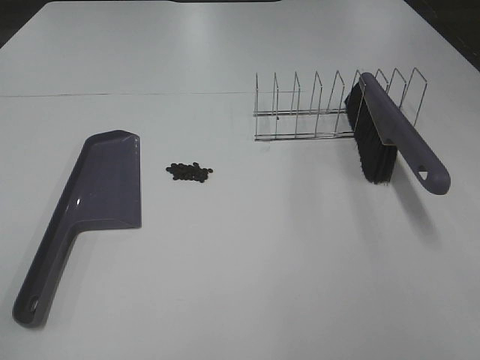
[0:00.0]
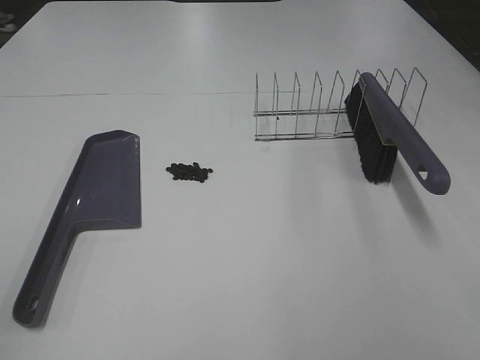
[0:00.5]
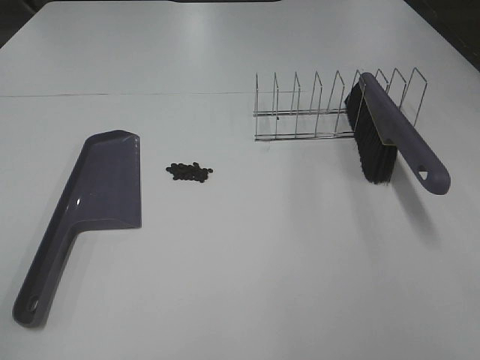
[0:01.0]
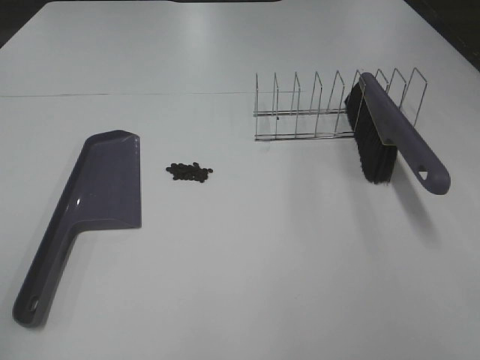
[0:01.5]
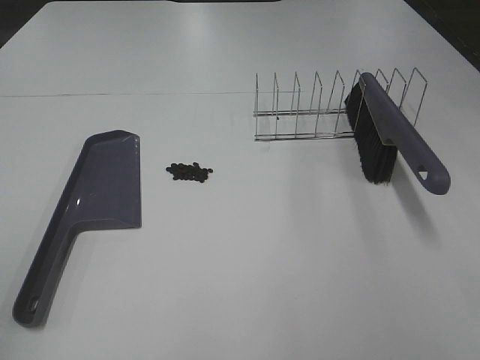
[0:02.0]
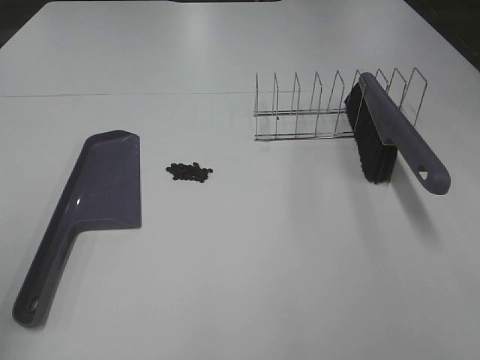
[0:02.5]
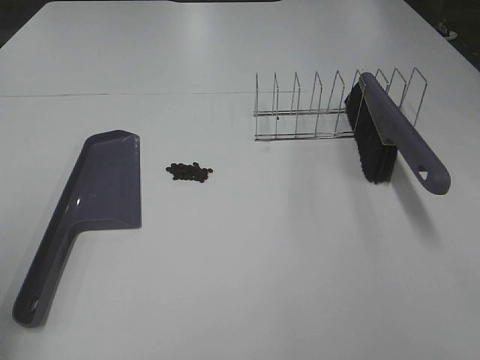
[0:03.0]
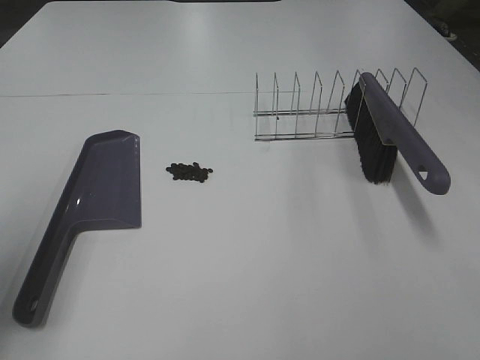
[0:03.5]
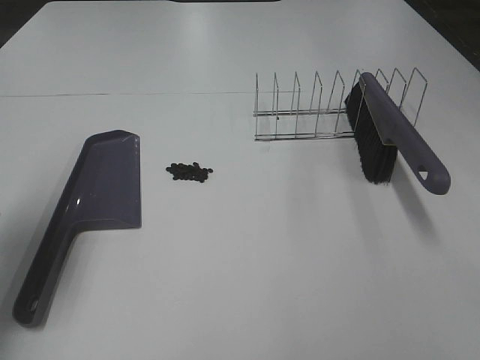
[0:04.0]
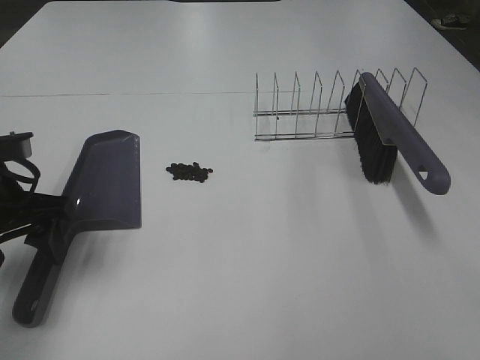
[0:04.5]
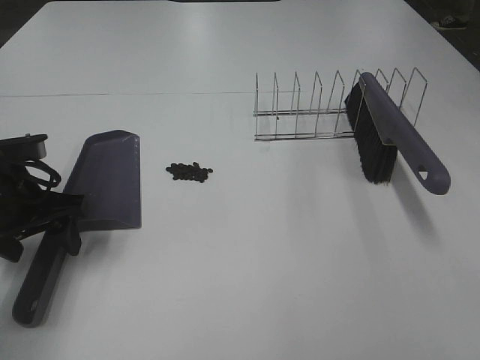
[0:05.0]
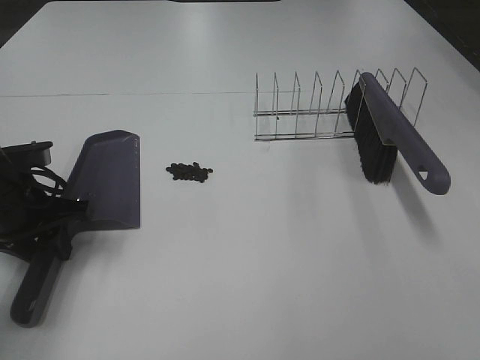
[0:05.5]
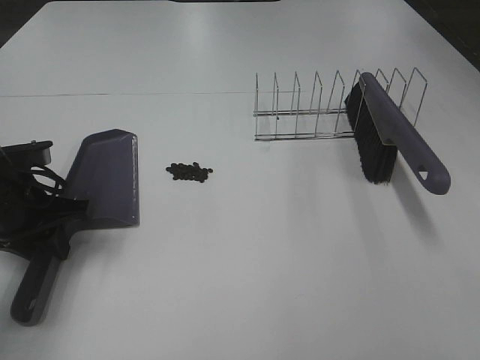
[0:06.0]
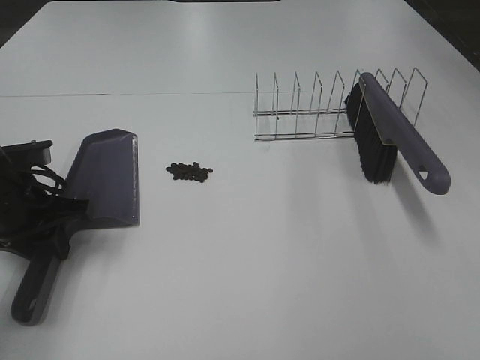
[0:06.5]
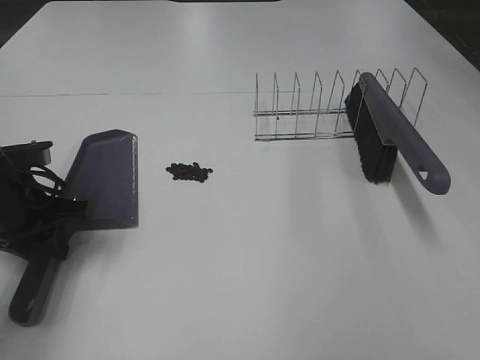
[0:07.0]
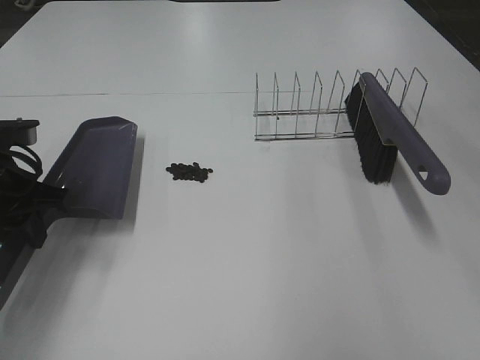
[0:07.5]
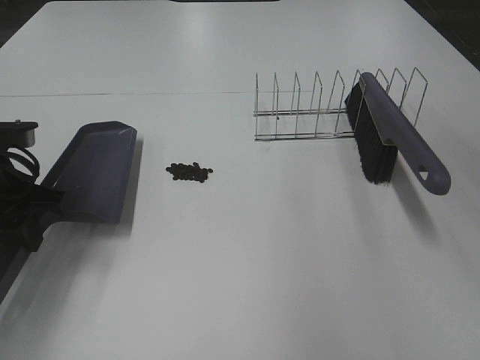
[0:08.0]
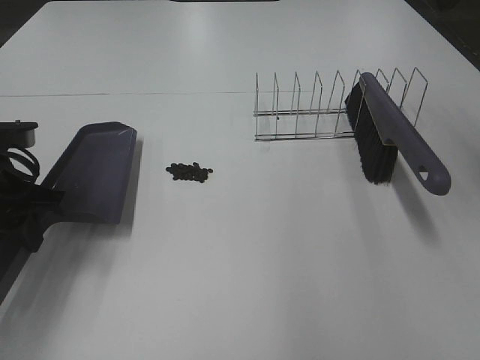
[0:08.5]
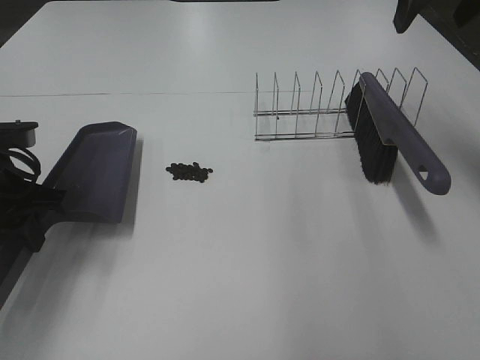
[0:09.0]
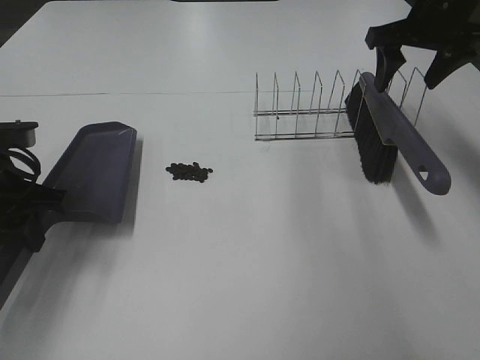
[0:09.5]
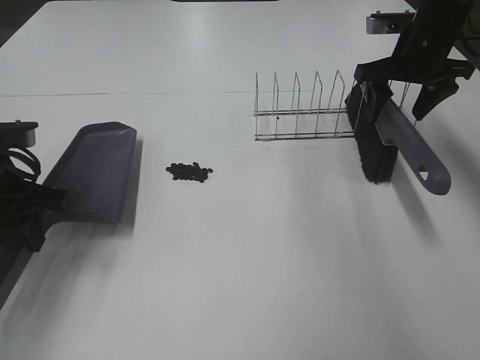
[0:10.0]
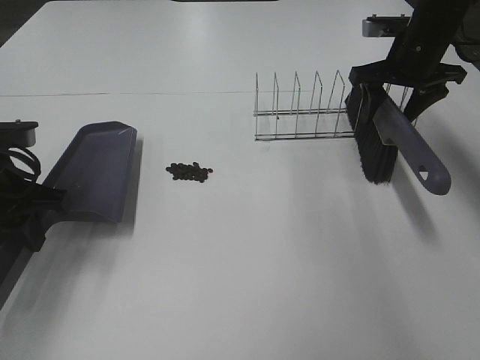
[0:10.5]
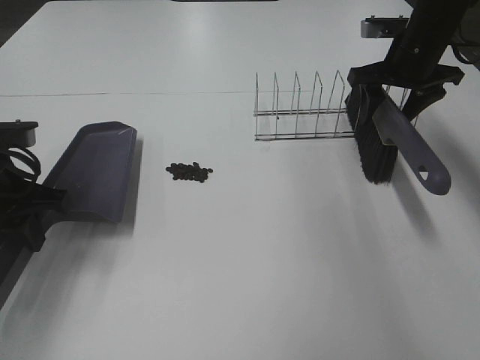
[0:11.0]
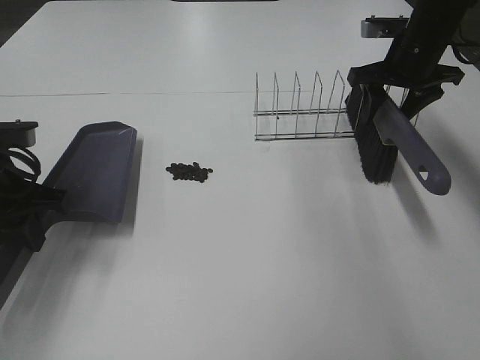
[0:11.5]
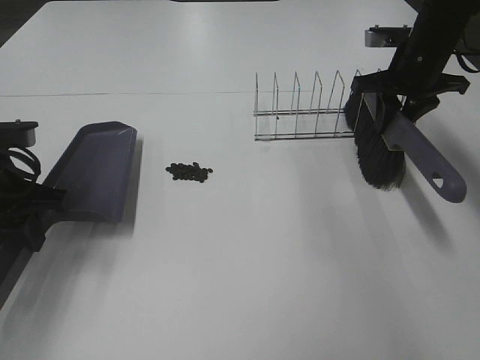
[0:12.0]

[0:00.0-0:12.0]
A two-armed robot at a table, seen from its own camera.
Task of the whole recording: Sweep Coffee Bean.
Step, 0:00.0 to 0:05.5: Left hand: grab the dustpan.
Step, 0:06.5 to 0:11.5: Right hand:grab the broom.
0:02.0 to 0:04.0: The left gripper shifts approximately 20 cm forward.
0:04.0 to 0:06.0: The left gripper is displaced downward, forward and to the right by some 15 cm, and closes its fingers.
0:06.0 to 0:08.0: The right gripper shifts about 25 cm forward and upward.
0:08.0 to 0:10.0: The right gripper goes some 30 cm forward and downward.
0:10.0 to 0:12.0: The right gripper closes its fingers.

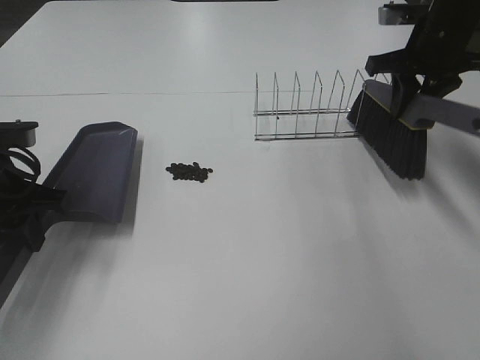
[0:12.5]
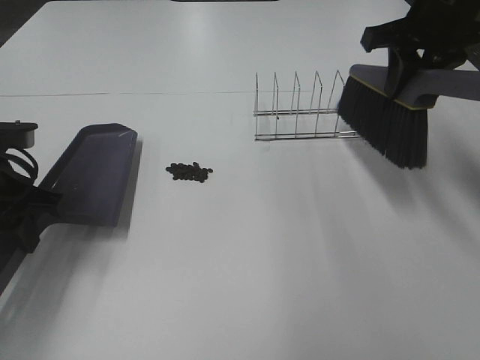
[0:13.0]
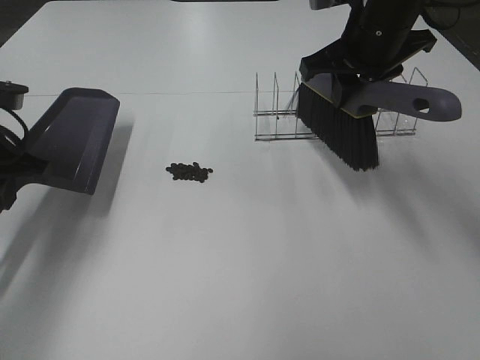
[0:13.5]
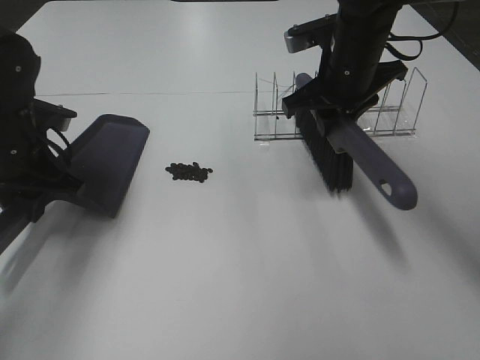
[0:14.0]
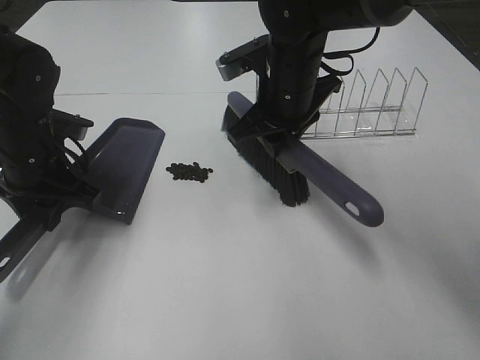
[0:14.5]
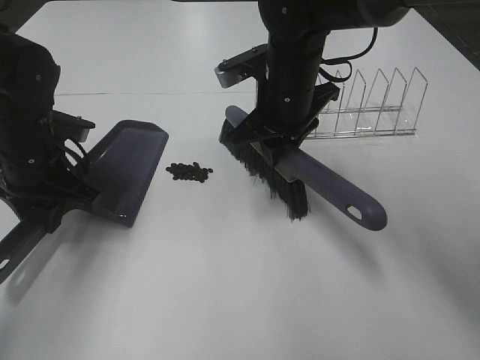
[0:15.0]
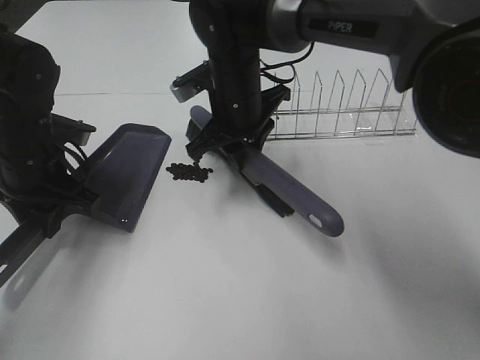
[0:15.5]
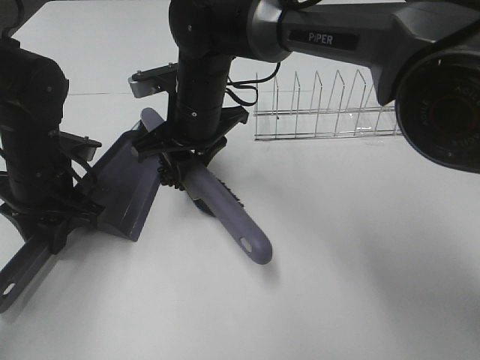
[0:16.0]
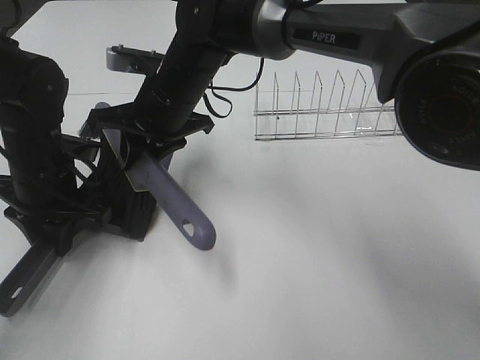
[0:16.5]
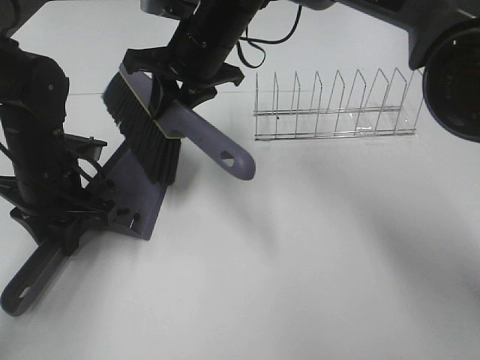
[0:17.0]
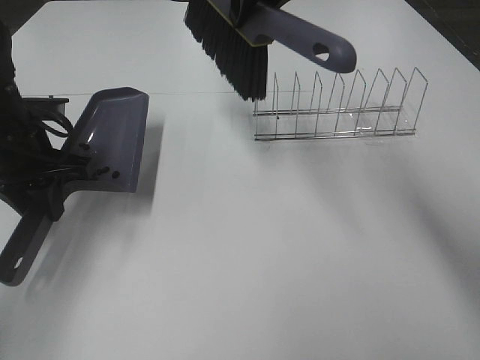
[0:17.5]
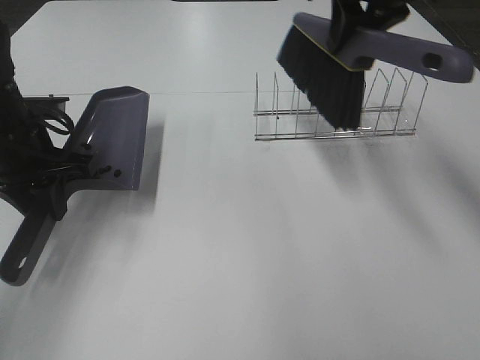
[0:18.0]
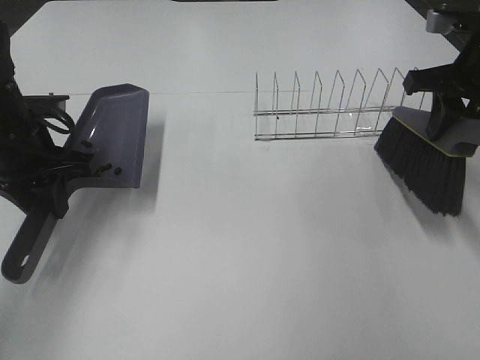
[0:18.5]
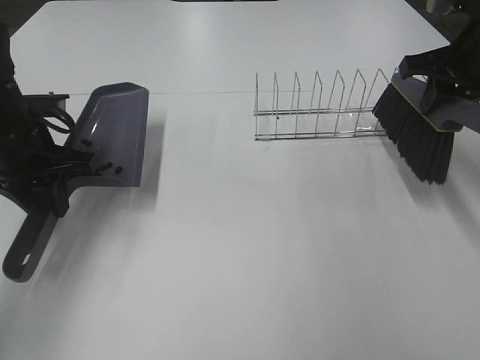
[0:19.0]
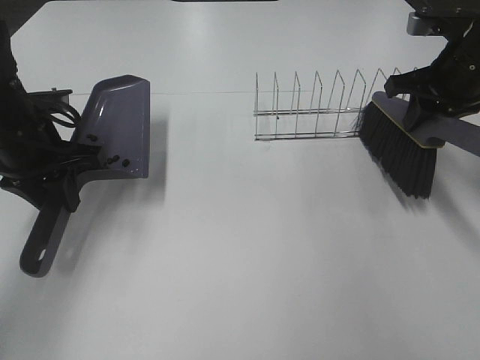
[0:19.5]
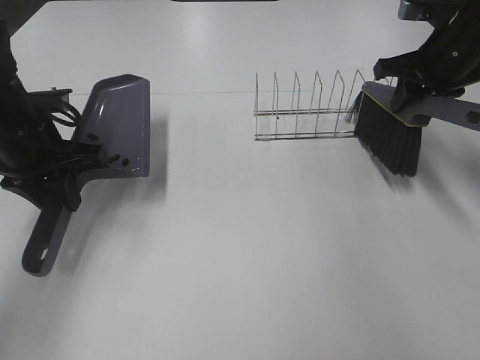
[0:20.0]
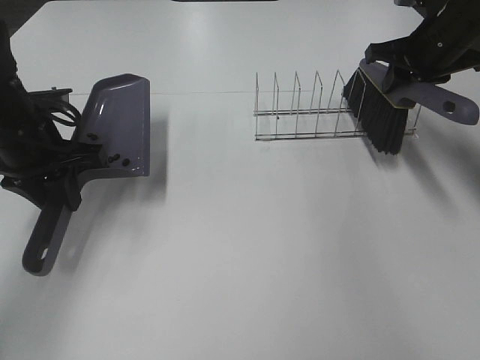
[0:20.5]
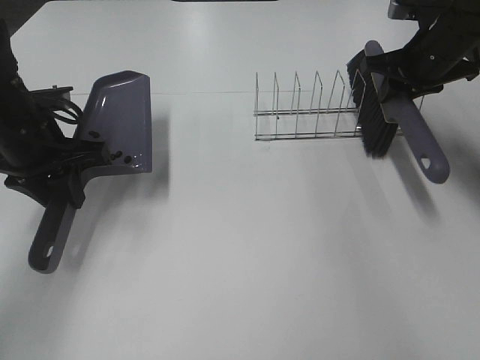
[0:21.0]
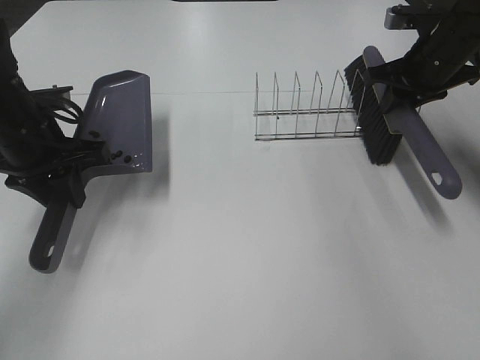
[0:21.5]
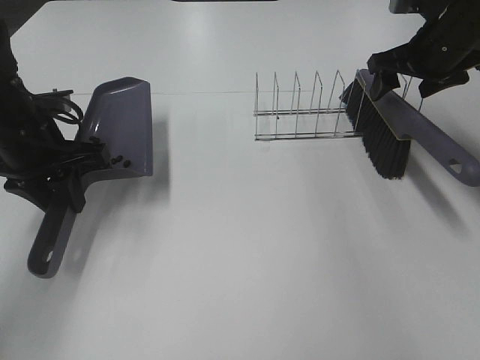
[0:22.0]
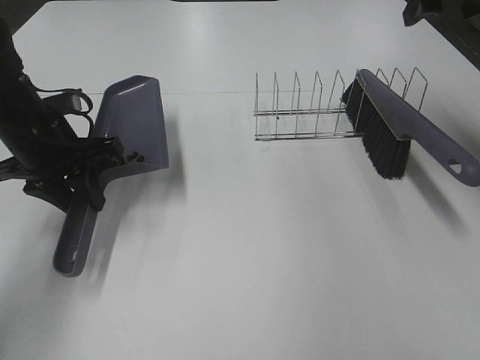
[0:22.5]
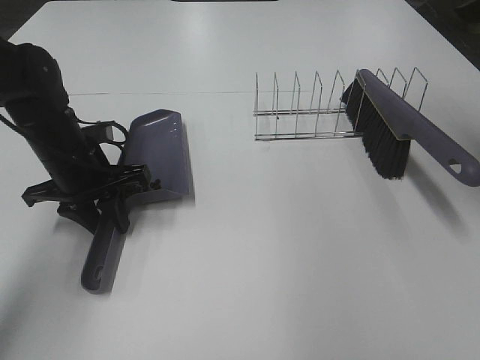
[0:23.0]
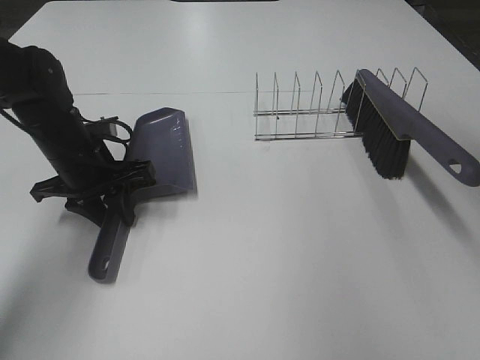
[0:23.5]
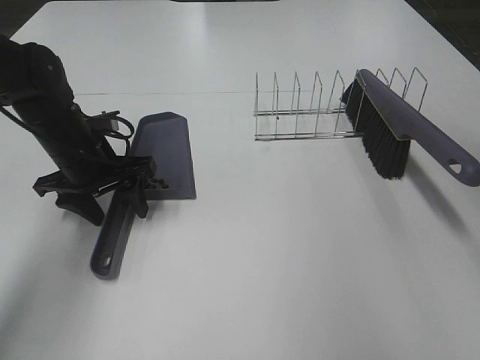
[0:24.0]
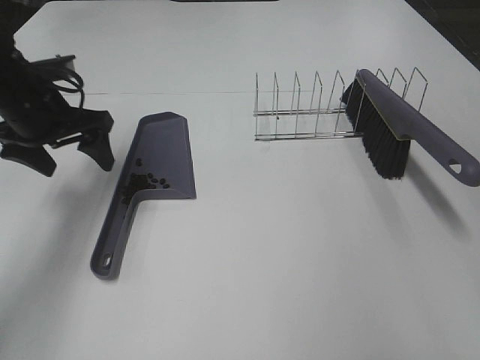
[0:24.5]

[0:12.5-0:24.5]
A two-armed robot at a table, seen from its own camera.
Task of the whole recording: Sweep Coffee Bean.
Step, 0:12.5 to 0:14.5: Left hand: move the dustpan to the left side of the coffee beans.
Step, 0:12.5 to 0:16.5: Right hand:sweep the coffee beans into the dustpan.
Step, 0:17.0 to 0:21.5: Right hand:place the broom on the rack.
Step, 0:22.0 to 0:23.5: Left hand:place the dustpan on the table.
0:12.5 to 0:14.5: The right gripper travels to the left by roughly 20 cm. The left gripper shifts roughly 5 cm forward.
0:14.5 to 0:16.5: The right gripper moves to the left, roughly 15 cm.
0:16.5 to 0:18.5: The right gripper moves to the right, approximately 35 cm; the left gripper shifts by some 5 cm.
0:18.5 to 0:20.5: The right gripper travels forward by roughly 10 cm.
0:20.5 to 0:22.5: The right gripper moves upward, about 10 cm, and opens.
0:22.5 to 0:24.5: The left gripper travels downward and back again, about 5 cm each way, and opens, while the right gripper travels backward by about 30 cm.

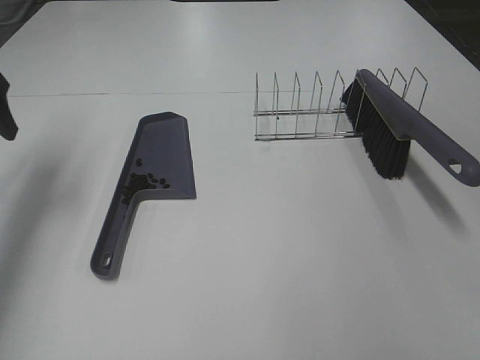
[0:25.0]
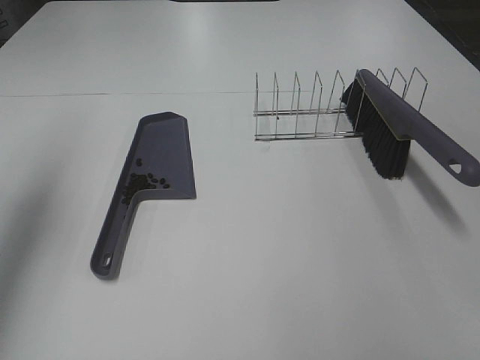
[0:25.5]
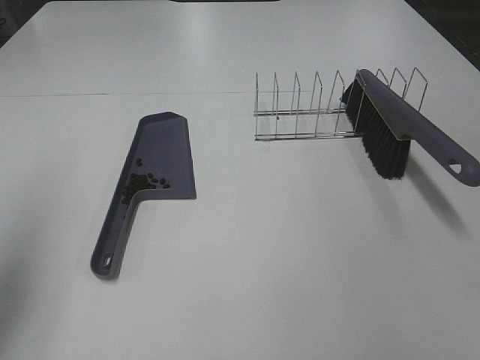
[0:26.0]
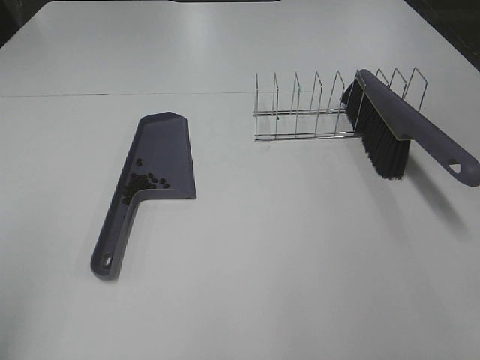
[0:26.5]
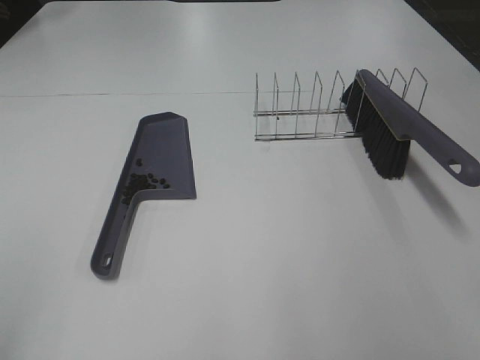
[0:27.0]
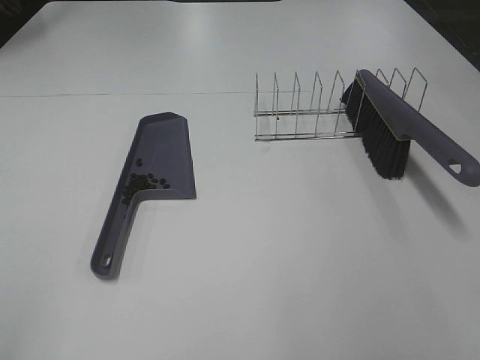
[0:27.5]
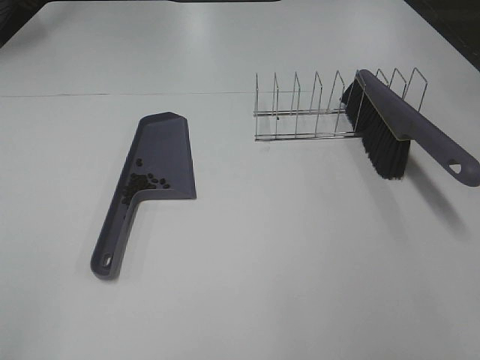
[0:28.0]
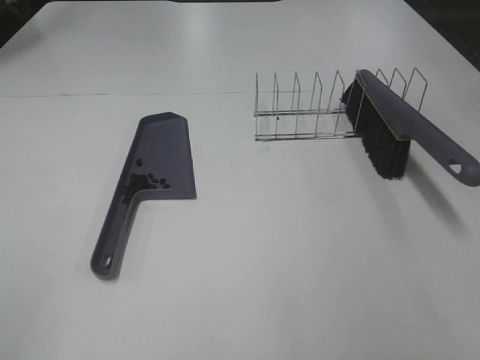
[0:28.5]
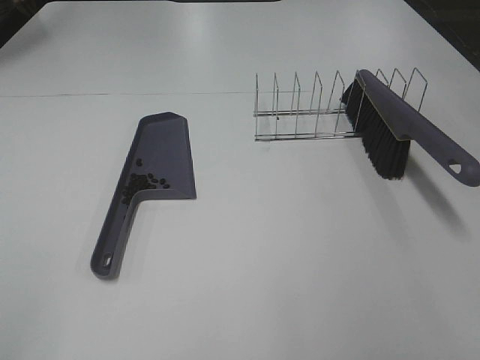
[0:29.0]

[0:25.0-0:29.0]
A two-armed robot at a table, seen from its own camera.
Task of the whole recording: Sweep Coffee Bean.
0:25.0 to 0:27.0: The left gripper is displaced backward by some 35 cm.
